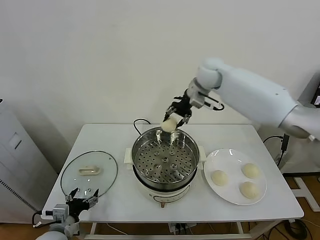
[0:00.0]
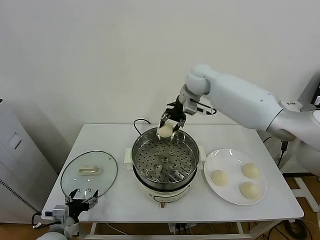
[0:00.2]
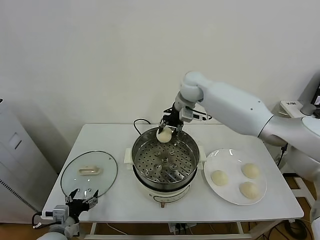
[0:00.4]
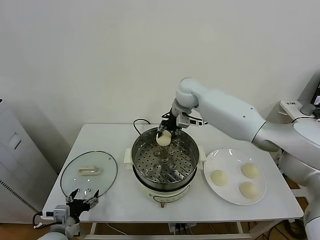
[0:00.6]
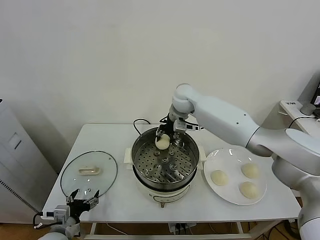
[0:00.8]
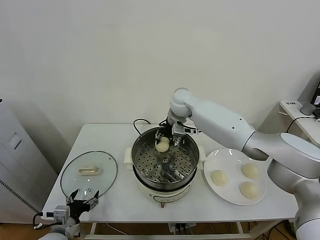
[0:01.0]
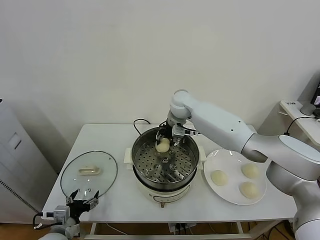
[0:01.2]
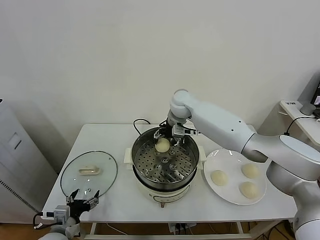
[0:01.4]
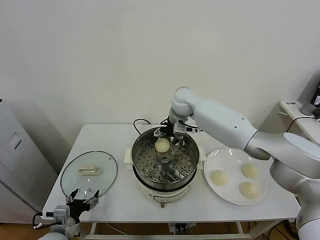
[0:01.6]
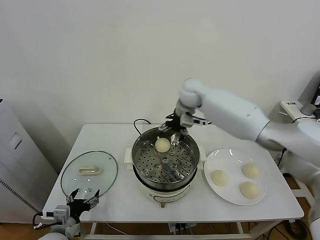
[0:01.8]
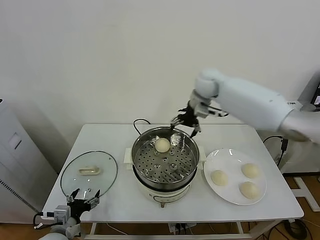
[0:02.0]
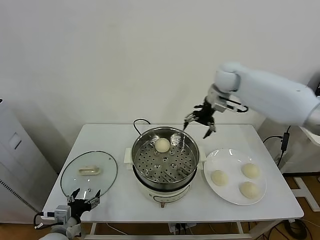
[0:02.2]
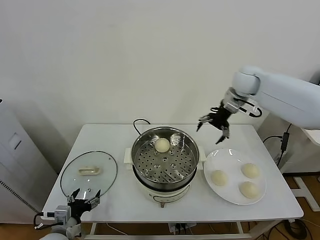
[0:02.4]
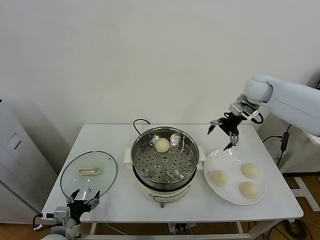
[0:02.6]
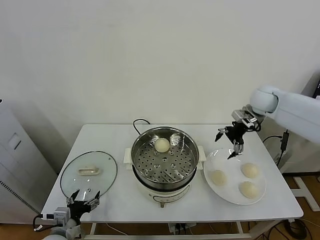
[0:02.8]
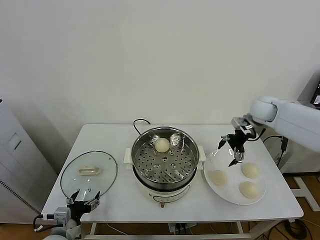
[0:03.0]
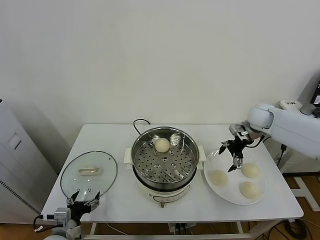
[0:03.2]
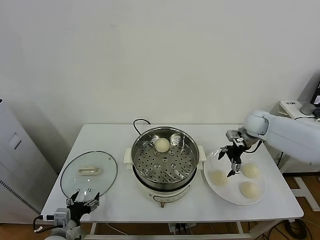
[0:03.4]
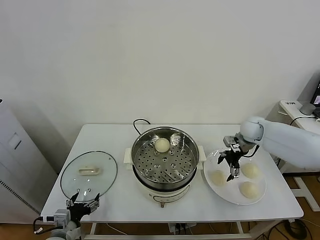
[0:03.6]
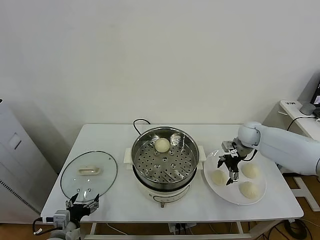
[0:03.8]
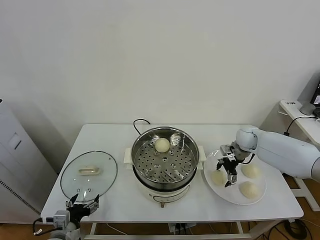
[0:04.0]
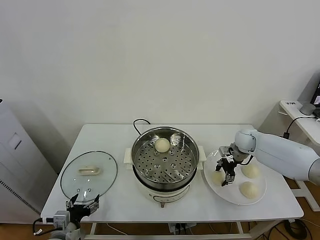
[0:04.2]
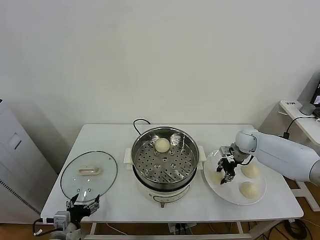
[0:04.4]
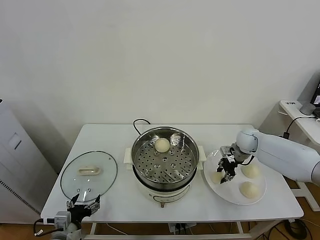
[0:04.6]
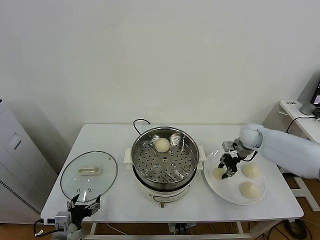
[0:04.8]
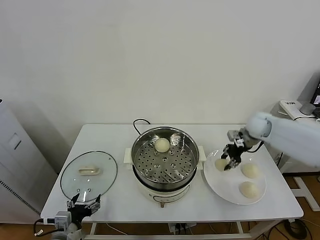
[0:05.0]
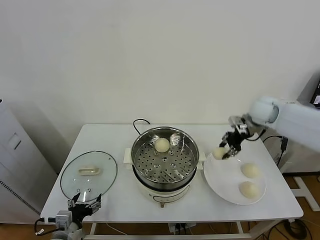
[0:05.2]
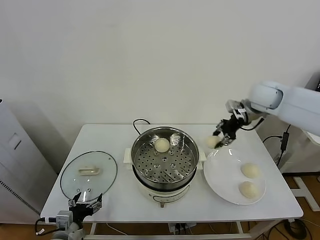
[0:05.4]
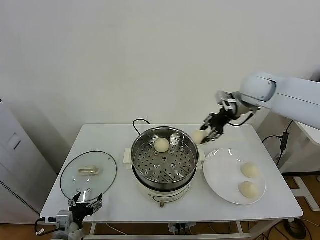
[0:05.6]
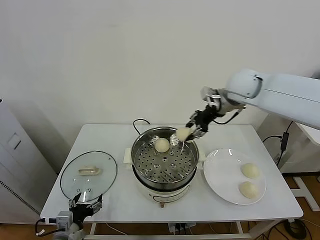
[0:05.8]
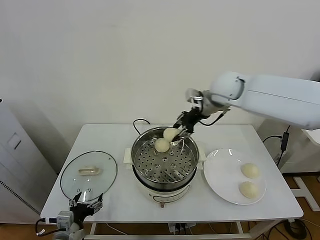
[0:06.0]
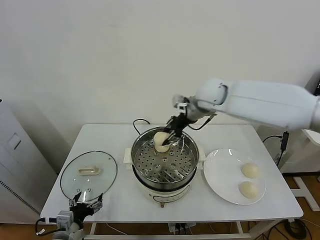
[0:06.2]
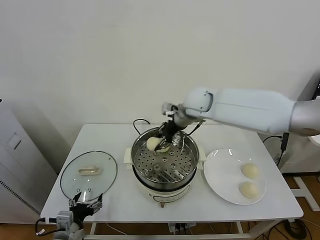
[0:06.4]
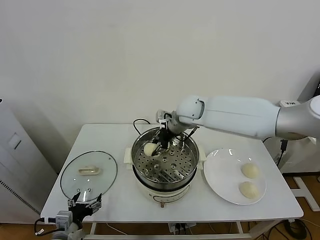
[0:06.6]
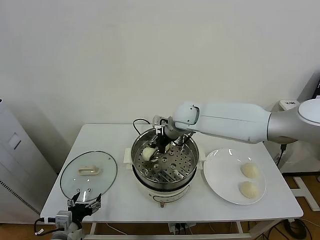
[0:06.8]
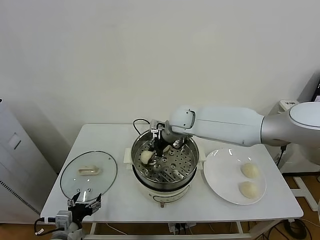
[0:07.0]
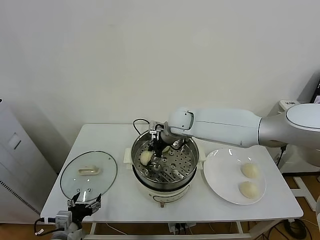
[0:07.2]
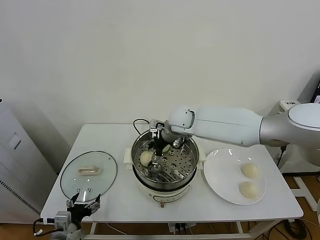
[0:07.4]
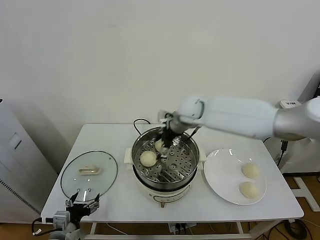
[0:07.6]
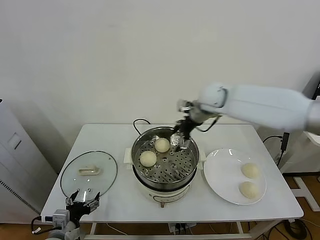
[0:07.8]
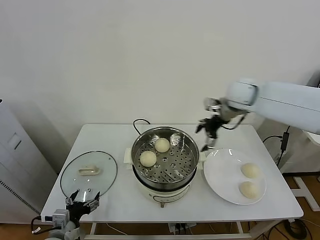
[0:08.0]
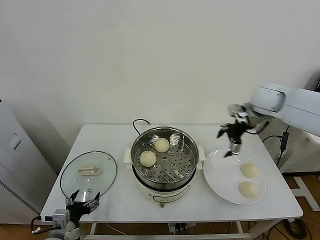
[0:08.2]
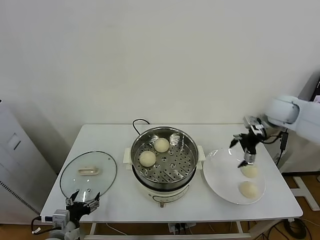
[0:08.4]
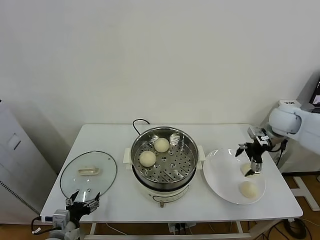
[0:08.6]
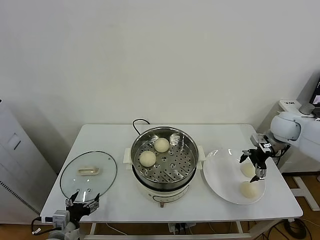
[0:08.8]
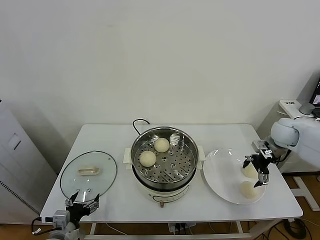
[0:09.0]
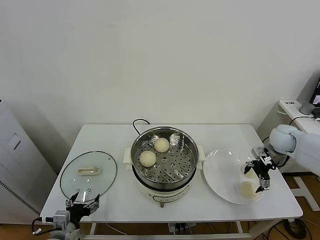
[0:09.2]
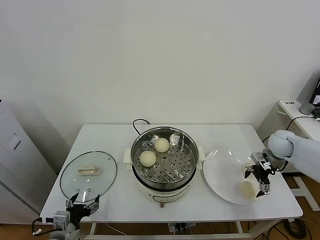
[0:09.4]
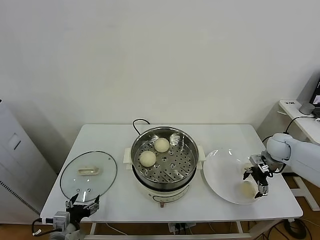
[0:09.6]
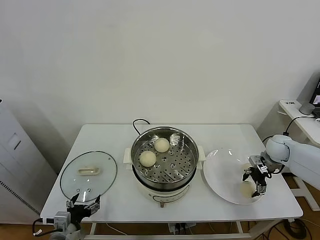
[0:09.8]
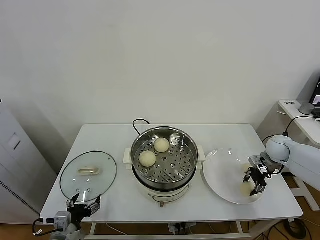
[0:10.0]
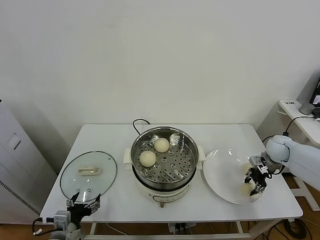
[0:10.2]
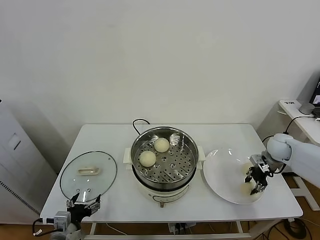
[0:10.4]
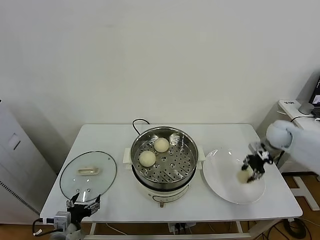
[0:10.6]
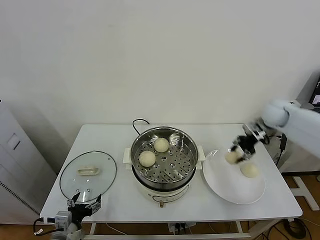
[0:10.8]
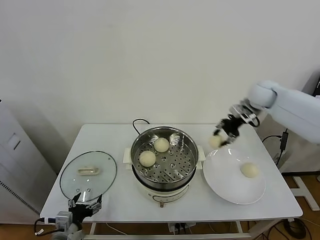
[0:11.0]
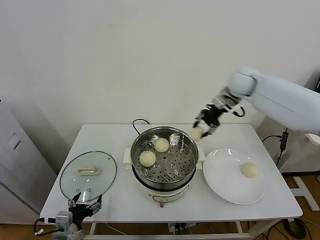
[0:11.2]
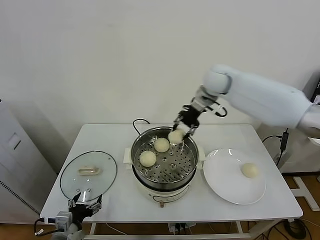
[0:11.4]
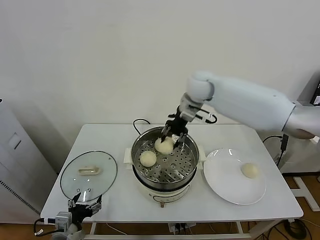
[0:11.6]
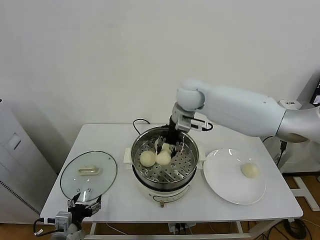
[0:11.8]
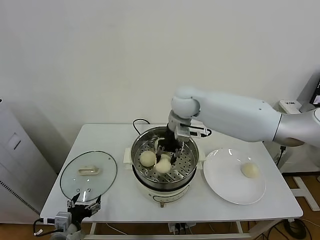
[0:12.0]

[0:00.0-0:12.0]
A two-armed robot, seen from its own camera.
Task of the whole recording: take steamed baozi put them in steamer.
Step, 0:00.0 to 0:01.6: Place the baozi on the steamer with right gripper.
Step, 0:02.0 to 0:04.2: Grasp the baozi in the plate with right gripper.
Step, 0:04.4 to 0:07.4: Place the baozi on the steamer with right gripper.
Step, 0:07.6 to 0:10.2: Grasp the baozi in the plate with right gripper.
0:00.0 to 0:01.6: The right gripper moves downward and to the left, roughly 10 cm, and opens up.
0:01.6 to 0:03.0: The right gripper is displaced to the right by some 25 cm.
0:03.0 to 0:04.4: The right gripper heads downward, covering approximately 15 cm, and closes.
0:04.4 to 0:06.0: The right gripper travels upward and to the left by about 30 cm.
0:06.0 to 0:07.6: The right gripper travels downward and to the left by some 10 cm, and opens its fingers.
0:07.6 to 0:09.0: The right gripper travels to the right by approximately 30 cm.
0:09.0 to 0:10.4: The right gripper heads downward, covering some 5 cm, and closes up.
0:10.4 to 0:12.0: The right gripper goes roughly 40 cm to the left and upward.

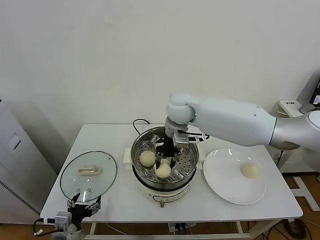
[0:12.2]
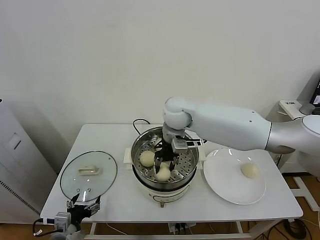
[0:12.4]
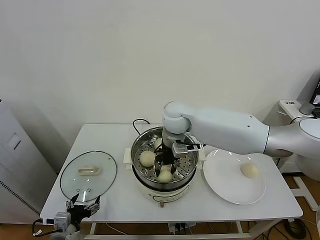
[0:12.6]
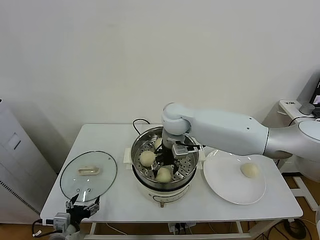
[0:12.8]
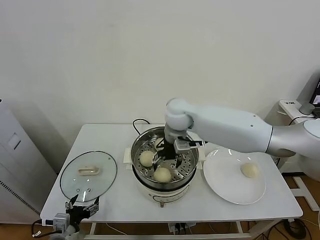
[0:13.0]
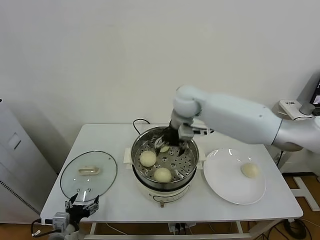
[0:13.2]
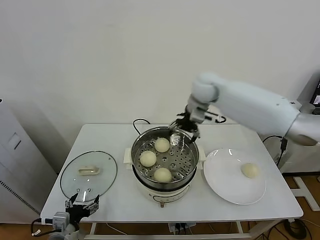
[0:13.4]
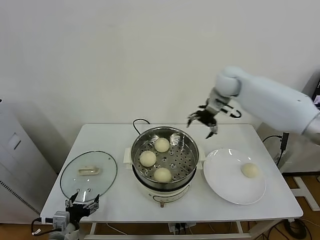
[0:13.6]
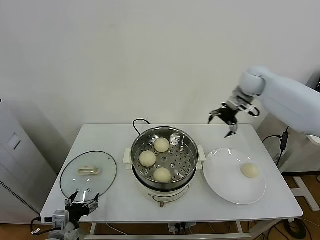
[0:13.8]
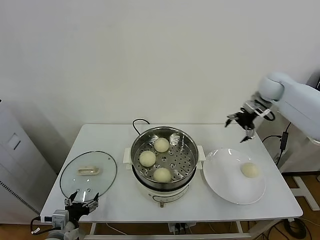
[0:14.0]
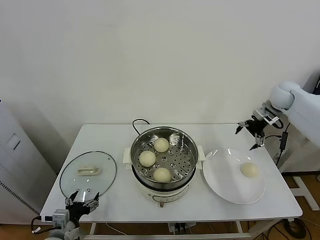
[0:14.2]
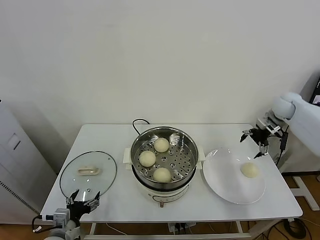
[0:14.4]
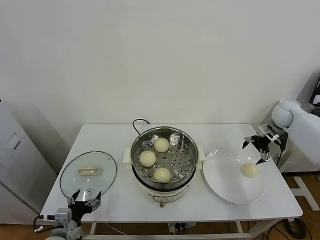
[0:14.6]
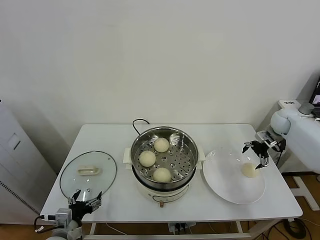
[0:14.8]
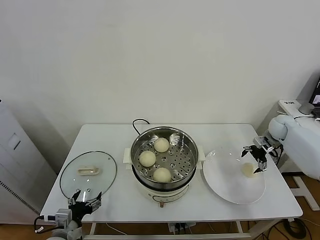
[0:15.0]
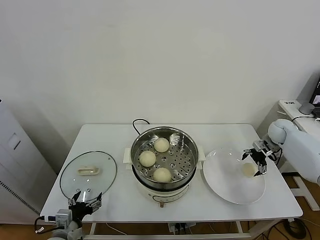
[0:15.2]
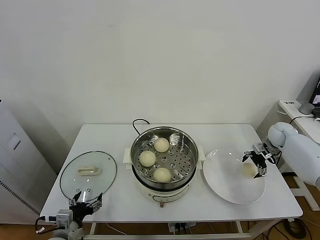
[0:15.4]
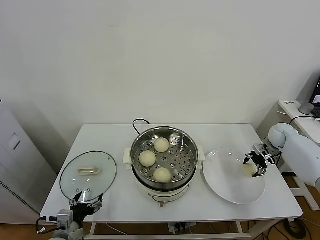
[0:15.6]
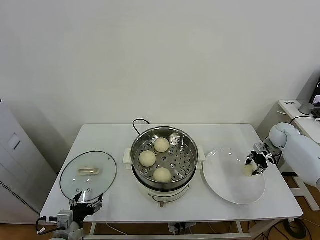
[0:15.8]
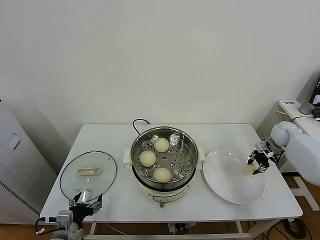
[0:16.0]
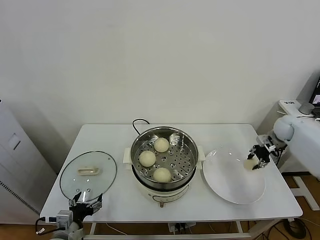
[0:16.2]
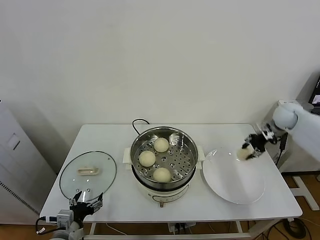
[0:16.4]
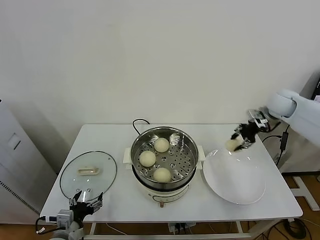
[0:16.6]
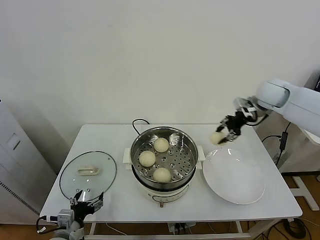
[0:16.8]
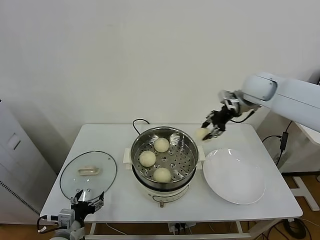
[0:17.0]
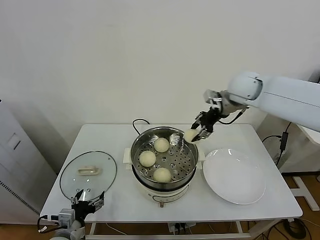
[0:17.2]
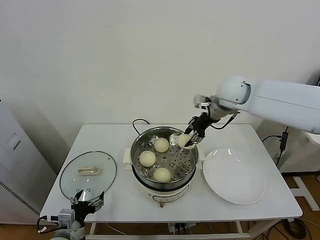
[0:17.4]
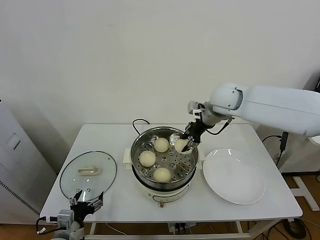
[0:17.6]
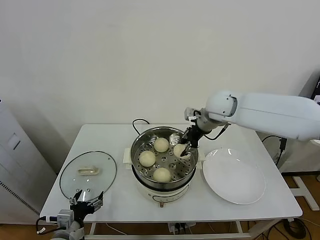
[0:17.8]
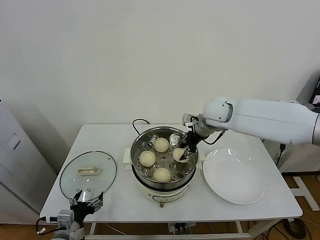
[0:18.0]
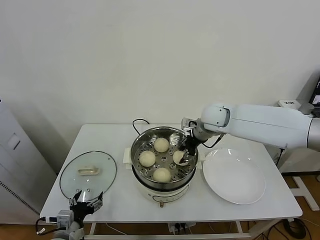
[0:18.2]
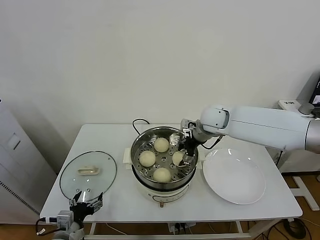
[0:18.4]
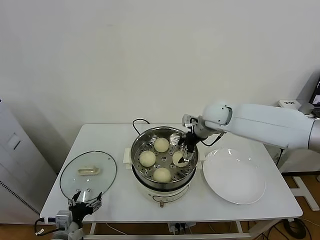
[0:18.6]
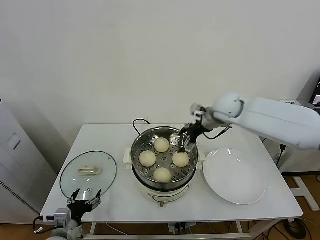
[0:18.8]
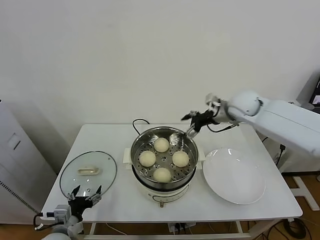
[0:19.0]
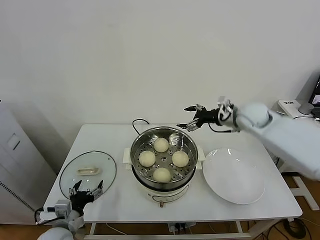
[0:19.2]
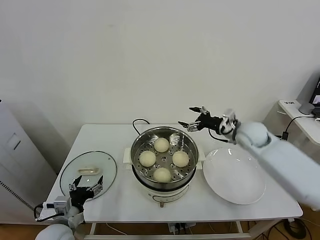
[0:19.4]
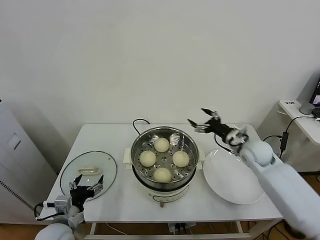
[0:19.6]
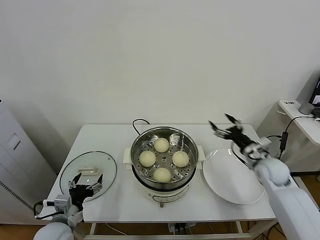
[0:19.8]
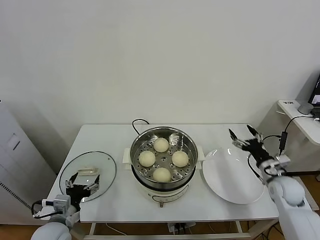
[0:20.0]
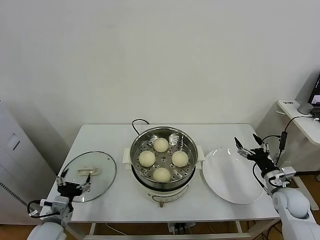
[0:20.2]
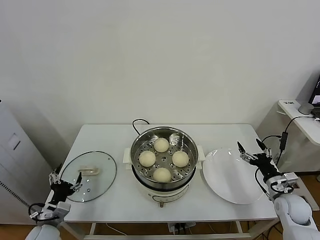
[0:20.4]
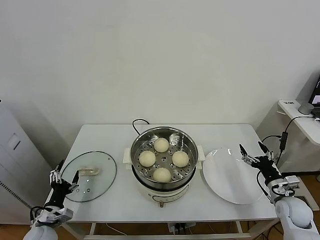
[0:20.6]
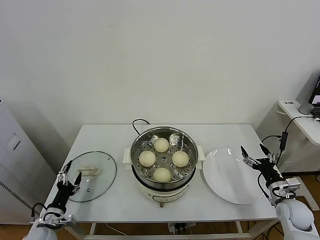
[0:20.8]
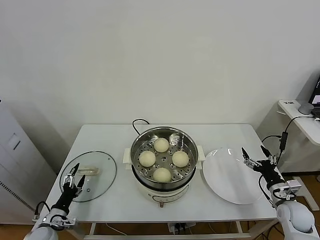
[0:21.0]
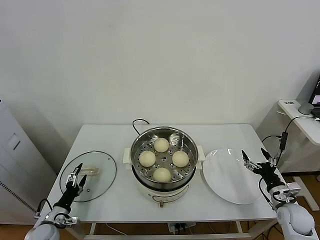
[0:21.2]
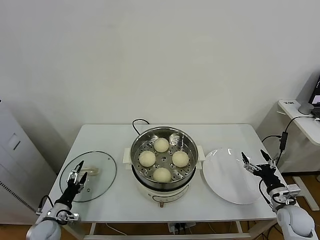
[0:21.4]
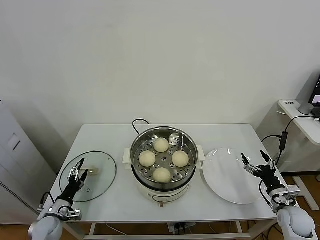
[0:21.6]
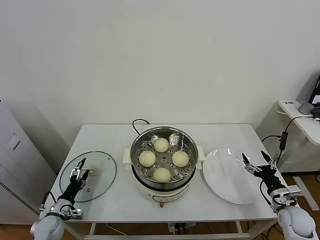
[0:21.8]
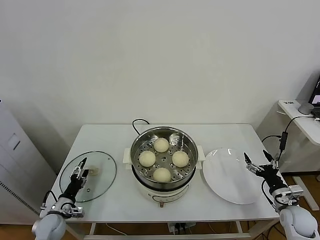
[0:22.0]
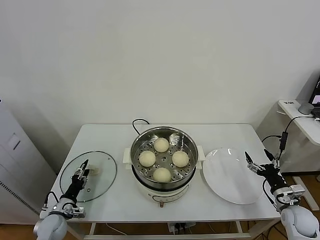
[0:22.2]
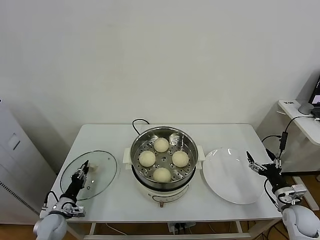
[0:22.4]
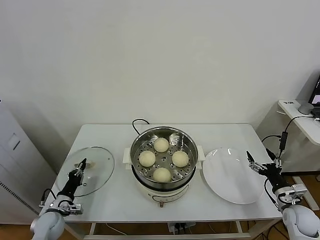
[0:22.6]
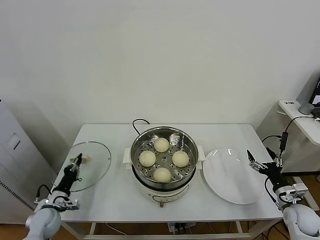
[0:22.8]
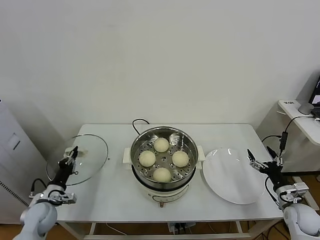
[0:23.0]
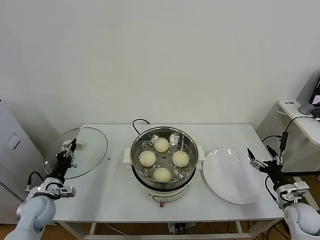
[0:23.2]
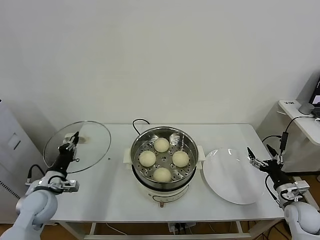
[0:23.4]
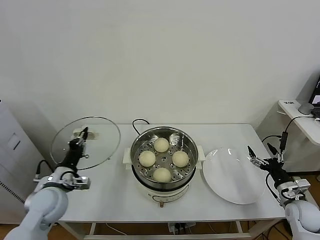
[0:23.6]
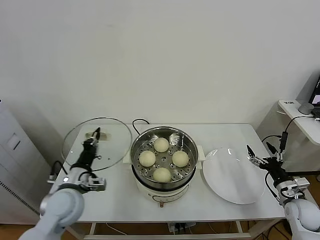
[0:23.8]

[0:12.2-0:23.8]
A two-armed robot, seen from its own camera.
Task of the whole recording: take steamed baozi put them in steamer.
Step, 0:13.2 to 0:15.8: Grasp the baozi in the plate with right gripper.
Step, 0:16.0 to 0:18.6: Place the baozi on the steamer with right gripper.
Step, 0:19.0 to 0:22.8: Grasp the pot lid with left gripper.
0:12.2 to 0:13.6: The right gripper heads to the right and forward, covering approximately 20 cm, and opens up.
0:13.6 to 0:15.0: The right gripper travels to the right and downward by roughly 30 cm.
0:15.0 to 0:16.6: The right gripper heads upward and to the left, covering some 15 cm, and closes.
0:16.6 to 0:18.0: The right gripper shifts some 20 cm to the left.
0:18.0 to 0:19.4: The right gripper shifts about 15 cm to the right and downward, and opens its fingers.
0:19.4 to 0:21.0: The left gripper goes about 15 cm downward and to the left. The right gripper travels backward, downward and to the right by about 30 cm.
0:21.0 to 0:22.4: The left gripper shifts by about 5 cm, and closes up.
0:22.4 to 0:23.8: The left gripper heads upward and to the right, covering some 25 cm.
